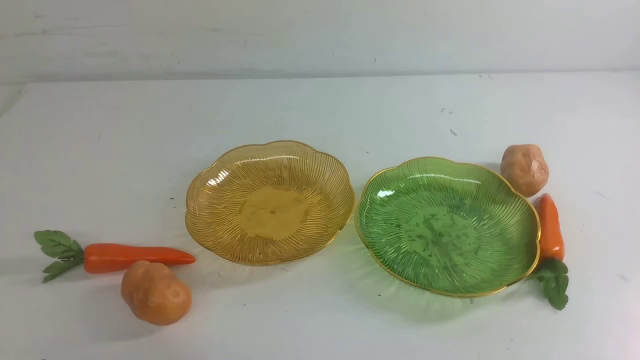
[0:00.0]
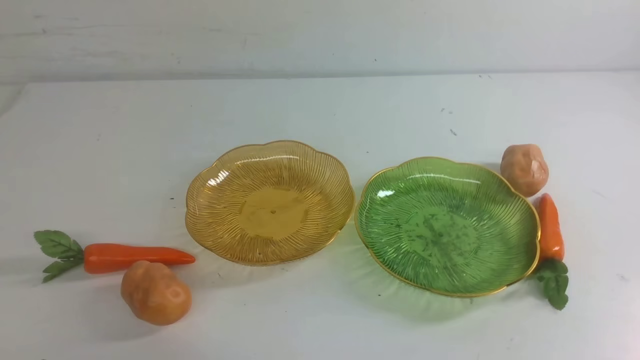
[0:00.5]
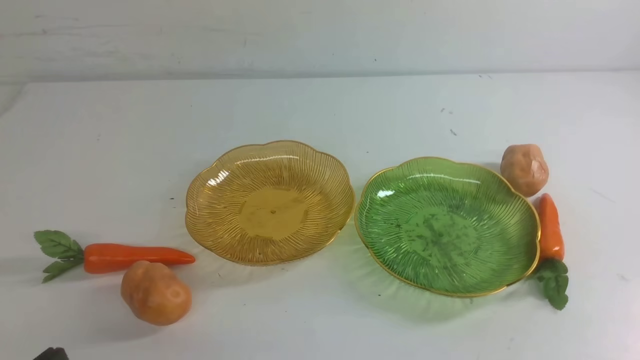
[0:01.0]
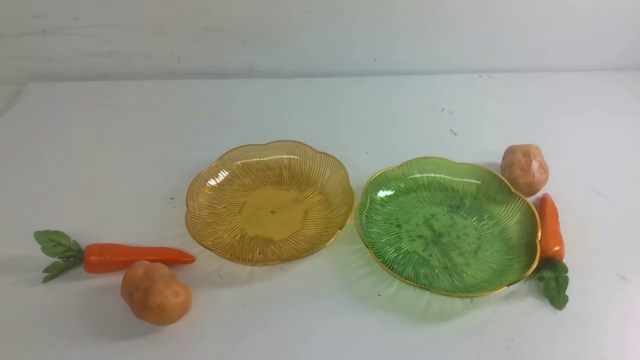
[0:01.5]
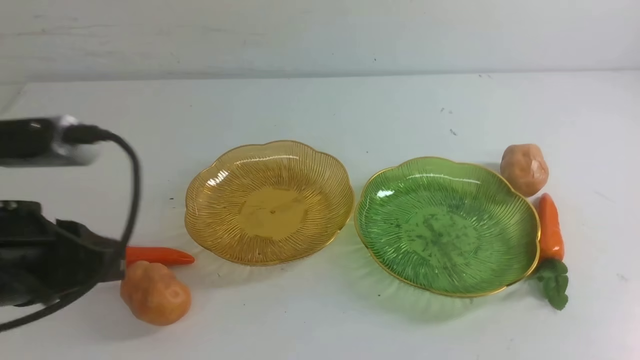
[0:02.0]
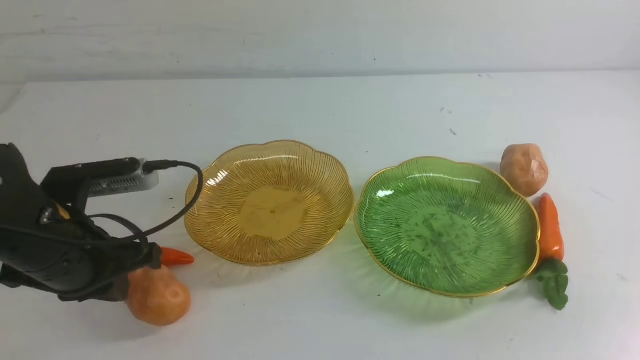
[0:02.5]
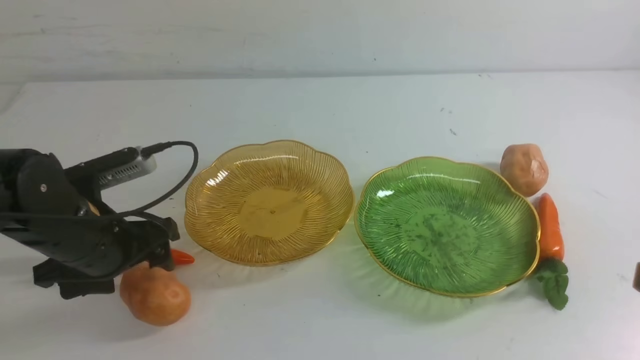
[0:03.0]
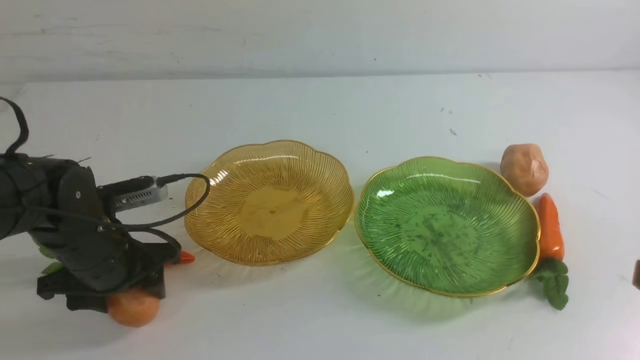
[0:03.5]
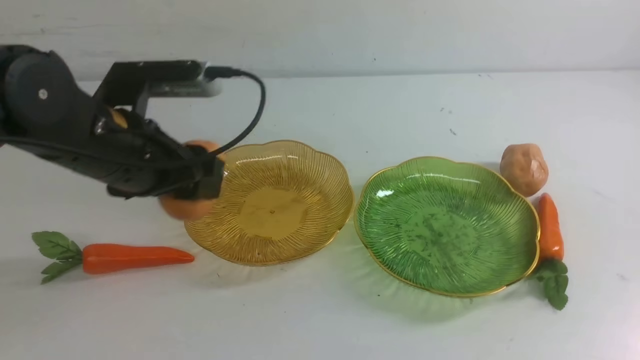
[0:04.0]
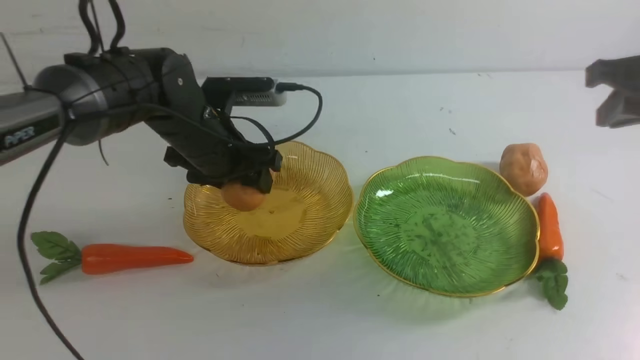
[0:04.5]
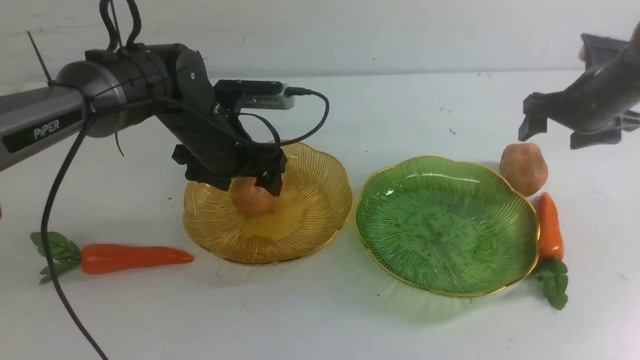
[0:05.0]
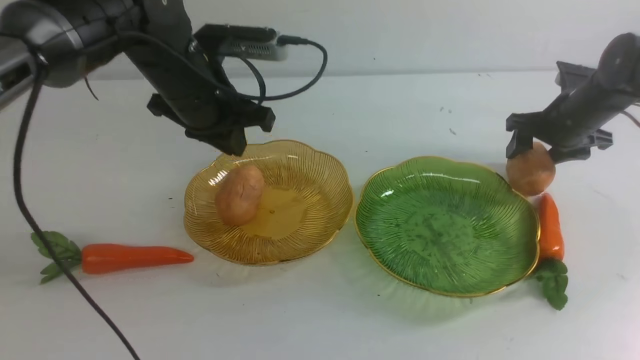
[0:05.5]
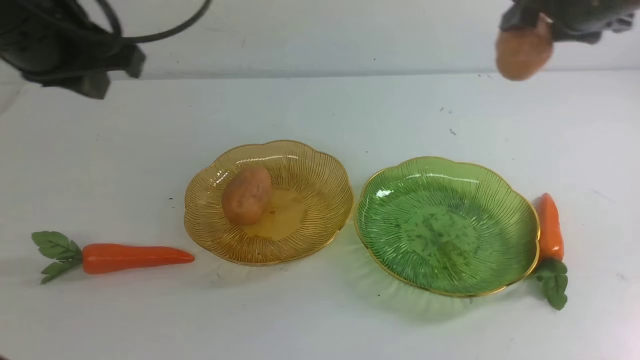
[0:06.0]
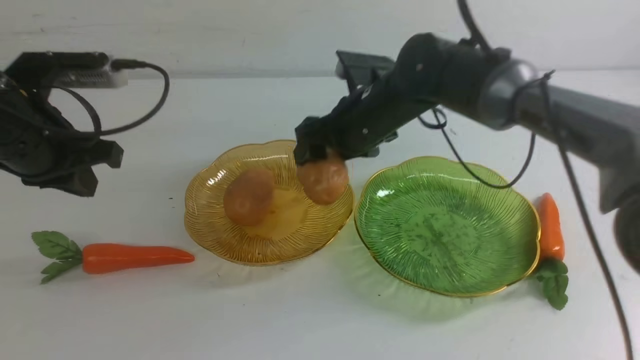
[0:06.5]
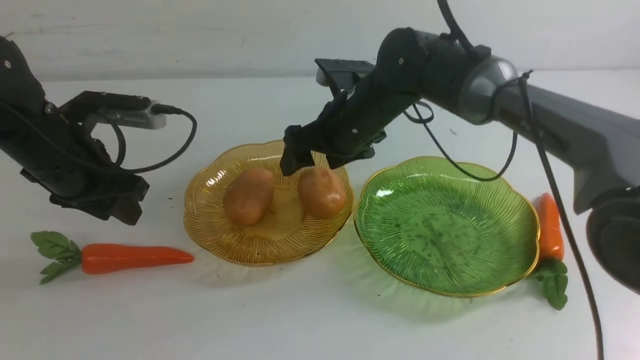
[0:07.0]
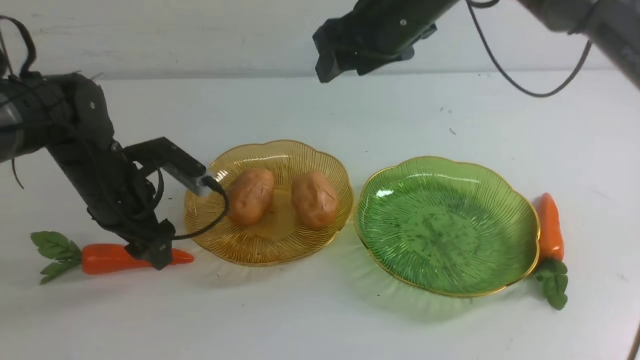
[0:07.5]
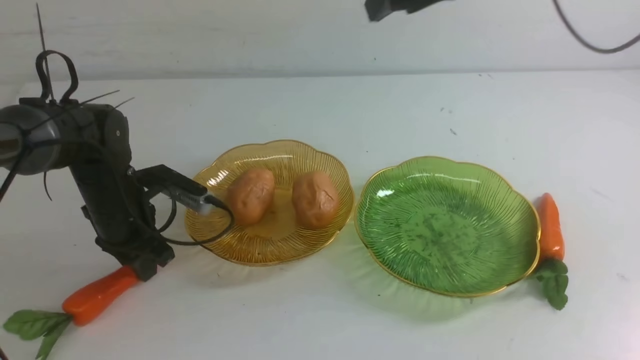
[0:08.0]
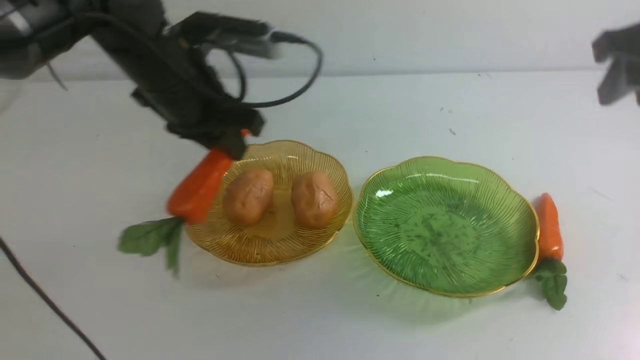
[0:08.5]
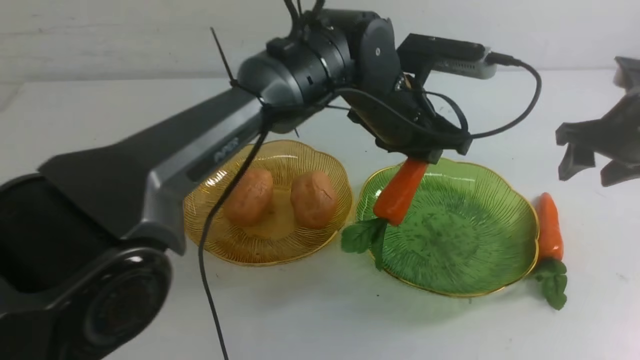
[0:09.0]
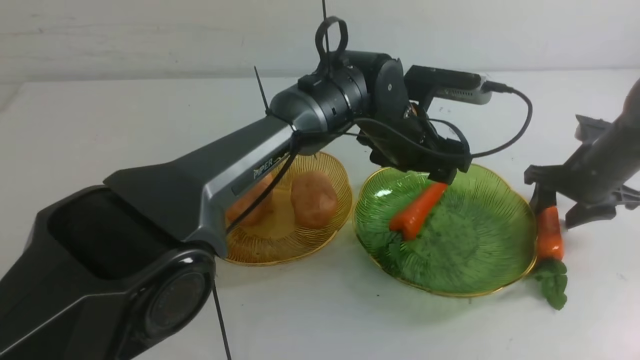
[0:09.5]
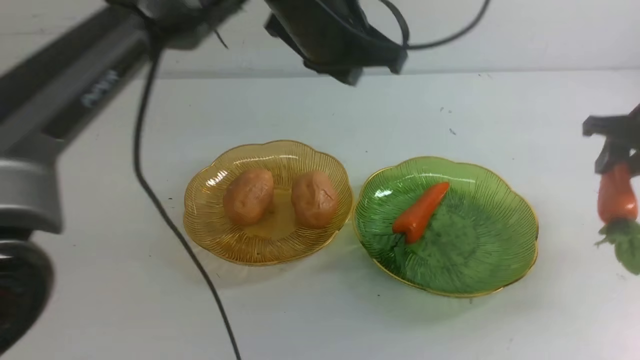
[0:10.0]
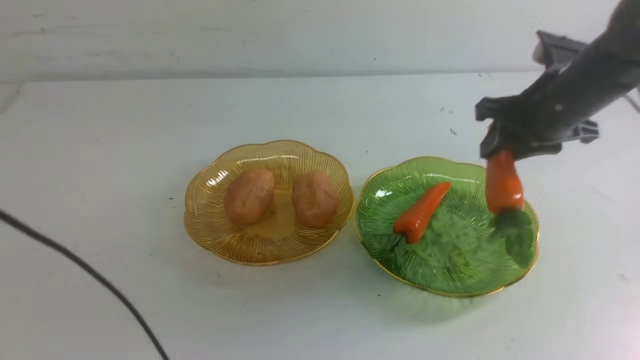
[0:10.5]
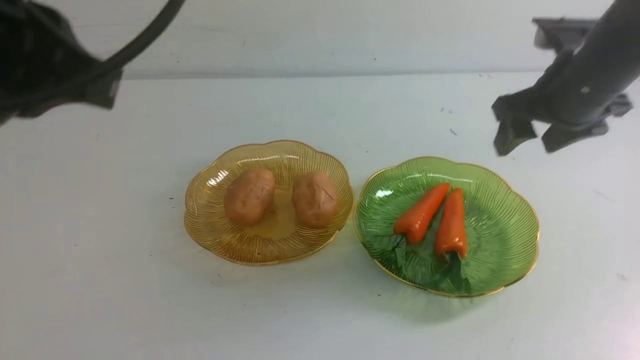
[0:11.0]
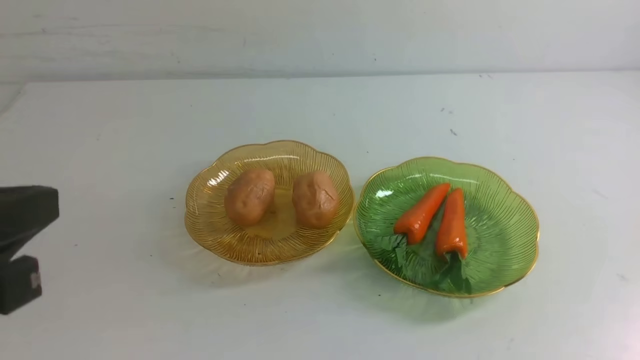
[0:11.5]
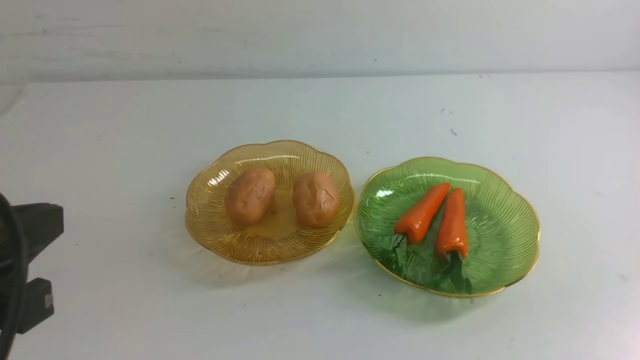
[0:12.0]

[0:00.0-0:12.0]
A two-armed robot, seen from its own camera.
Step, 0:00.0 to 0:05.0: Grab a potato with your left arm and put it on the left plate.
Step, 0:05.5 to 0:07.0: Grab a potato with your right arm and put it on the left plate.
Step, 0:07.5 to 0:09.5: use the left arm to grab a carrot and put it into the right plate.
Step, 0:10.0 to 0:11.0: use the right arm to grab a carrot and put it into the right plate.
0:00.0 to 0:02.0: The left gripper is displaced forward and upward by approximately 20 cm.
0:02.0 to 0:04.0: The left gripper heads forward, covering roughly 10 cm, goes downward and returns, roughly 10 cm each way, and opens. The right gripper moves upward and forward, roughly 20 cm.
0:04.0 to 0:06.0: The right gripper travels forward and to the left by about 30 cm, and opens; the left gripper travels to the left by about 10 cm, and closes up.
0:06.0 to 0:08.0: The right gripper moves upward, to the right and backward, about 20 cm. Meanwhile the left gripper heads downward and forward, covering roughly 10 cm, and opens, then closes again.
0:08.0 to 0:10.0: The left gripper goes roughly 25 cm to the right and upward, and opens and closes again. The right gripper goes approximately 20 cm downward and to the right.
0:10.0 to 0:12.0: The left gripper travels backward and to the left by approximately 35 cm, while the right gripper goes approximately 35 cm backward, and closes its fingers.
